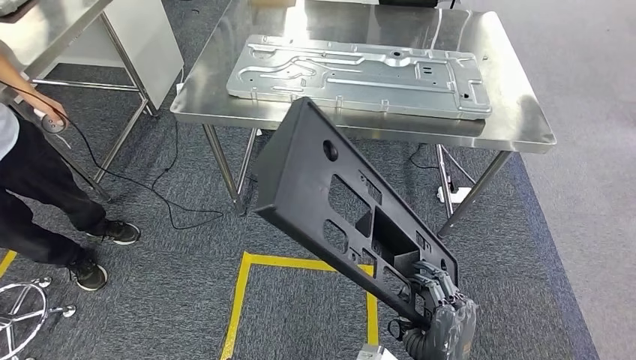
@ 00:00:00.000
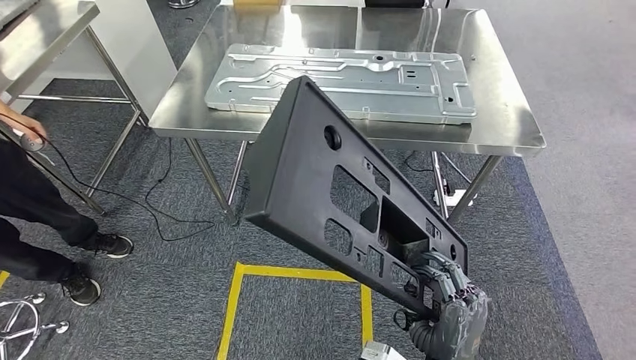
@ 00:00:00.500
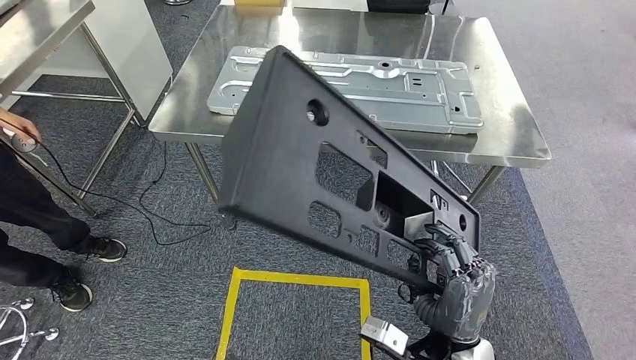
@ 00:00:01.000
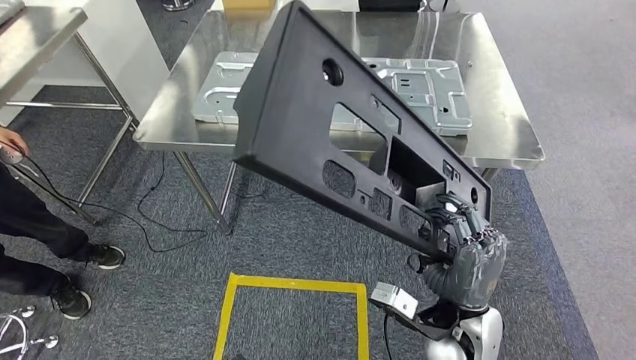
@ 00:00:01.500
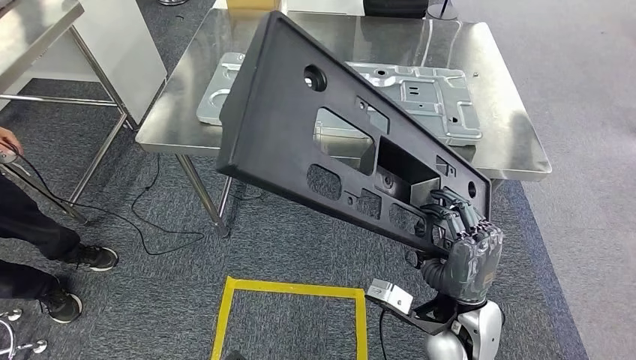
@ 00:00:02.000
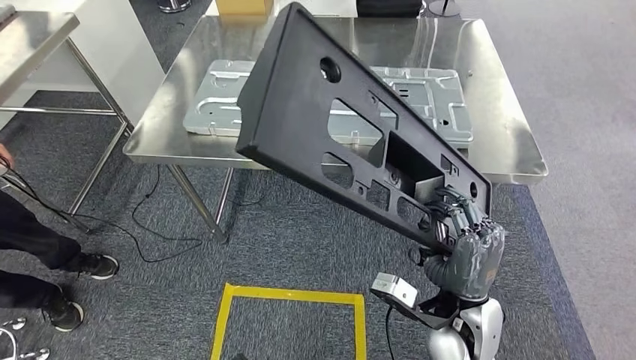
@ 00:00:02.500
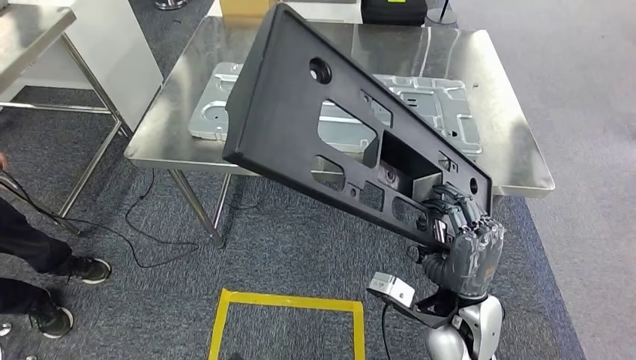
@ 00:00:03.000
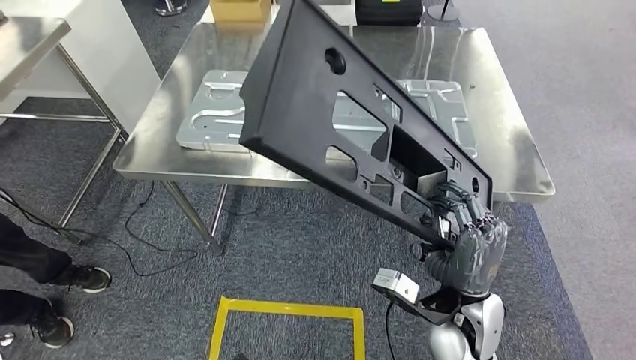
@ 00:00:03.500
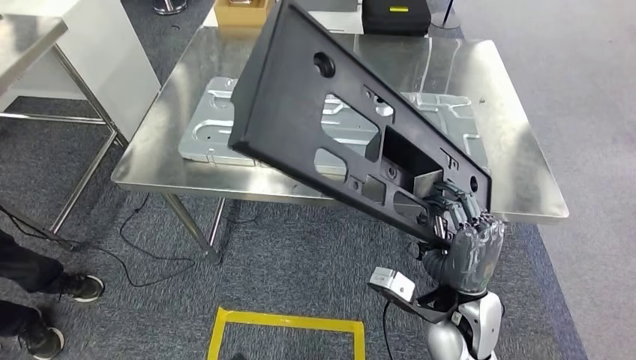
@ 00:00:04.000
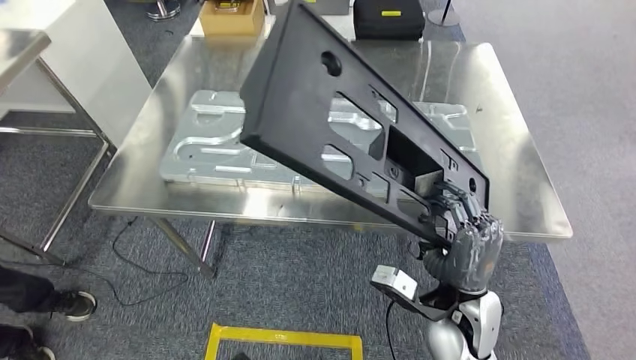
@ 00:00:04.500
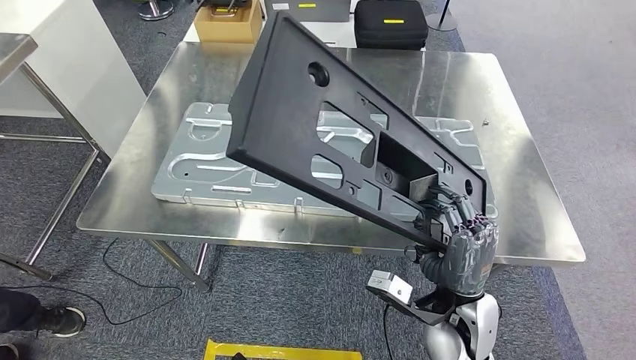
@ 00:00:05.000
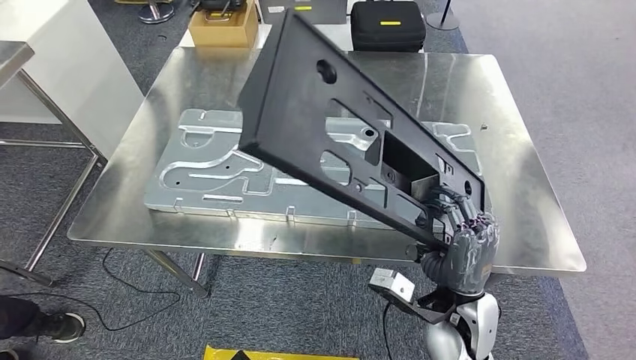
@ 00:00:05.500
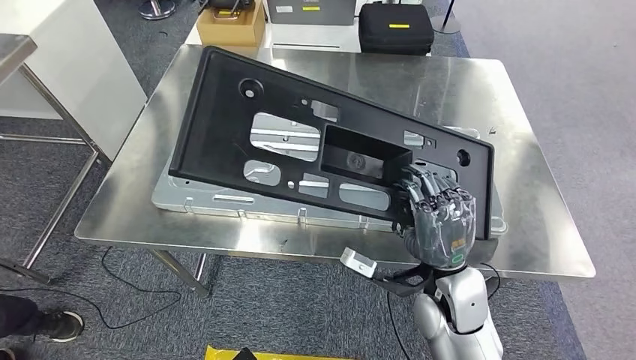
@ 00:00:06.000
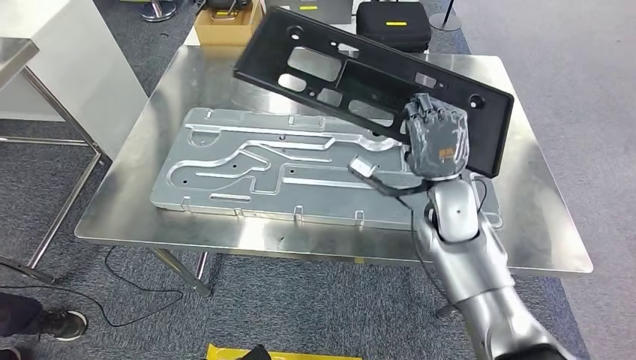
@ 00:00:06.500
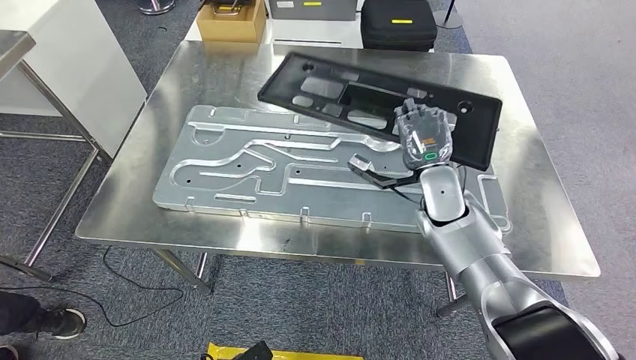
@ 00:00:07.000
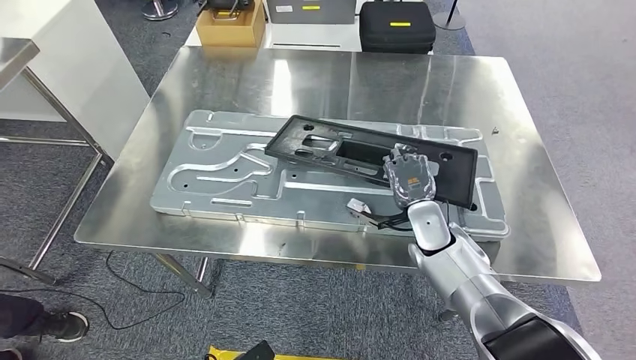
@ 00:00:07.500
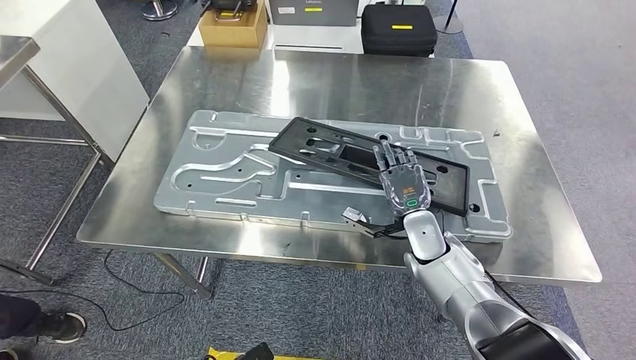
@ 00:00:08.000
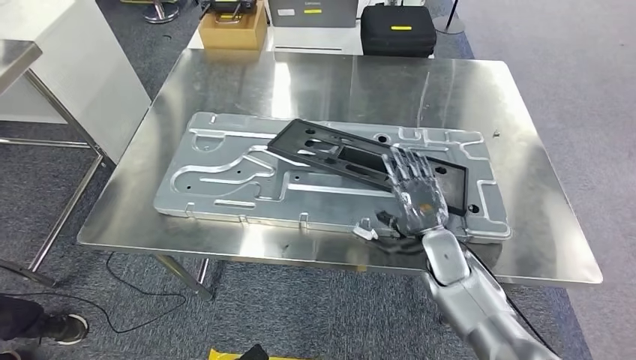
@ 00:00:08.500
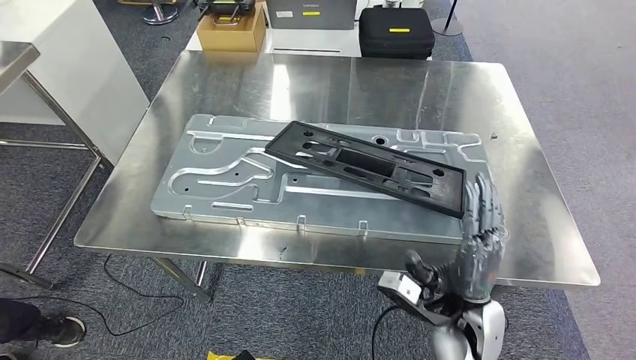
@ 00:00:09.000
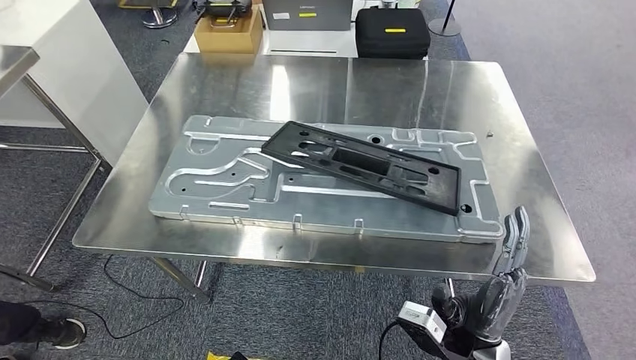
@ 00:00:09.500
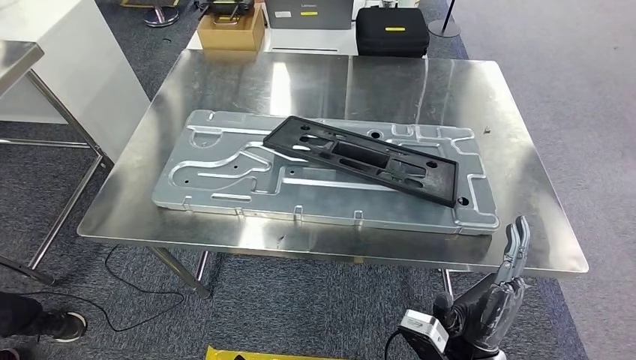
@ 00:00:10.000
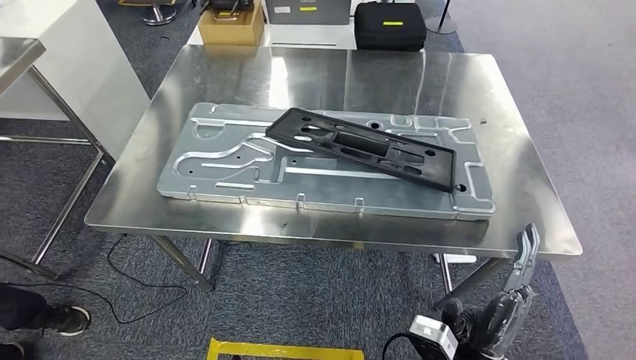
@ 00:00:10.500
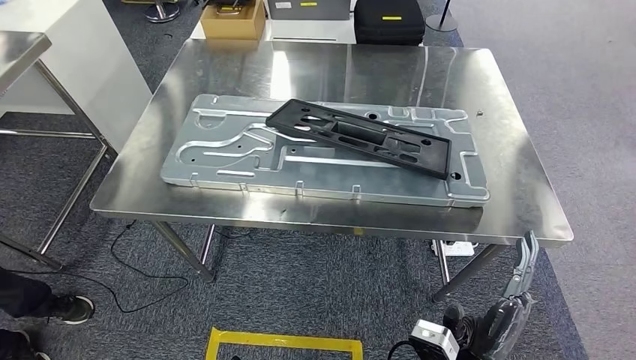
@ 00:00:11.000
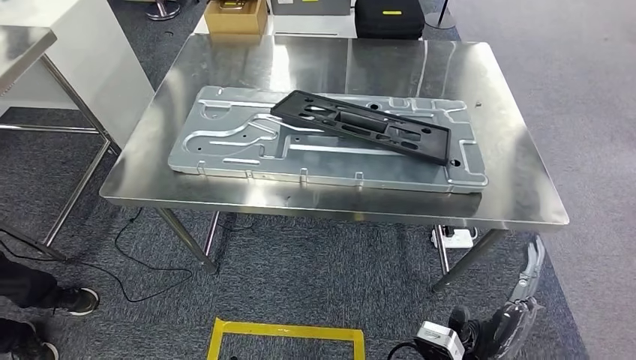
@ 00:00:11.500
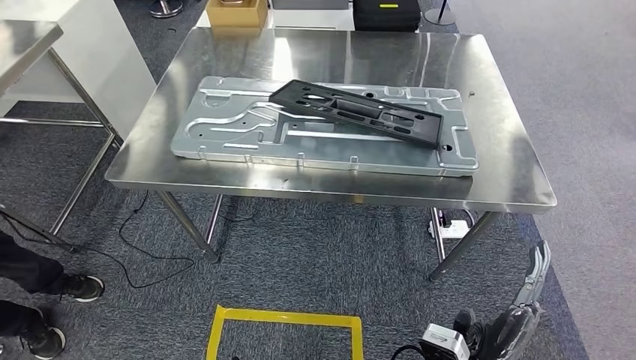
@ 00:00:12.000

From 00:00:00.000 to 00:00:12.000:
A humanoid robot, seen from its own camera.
Step, from 00:00:00.000 to 00:00:04.000: Move the large material to the workbench.
Step, from 00:00:06.500 to 00:00:10.500: Insert the large material into the corresponding slot on the workbench.

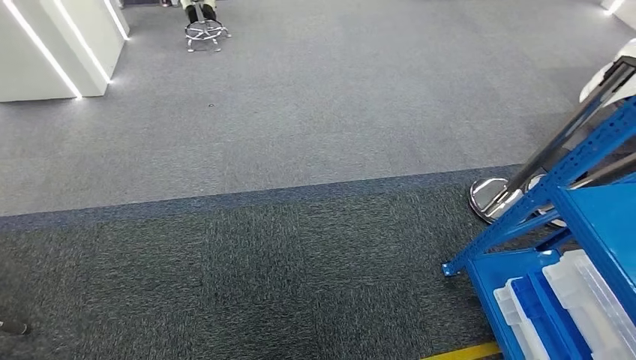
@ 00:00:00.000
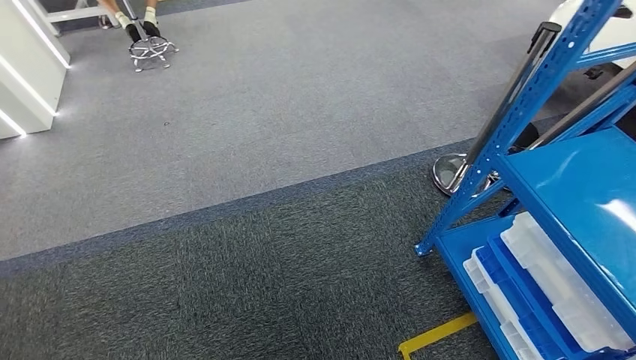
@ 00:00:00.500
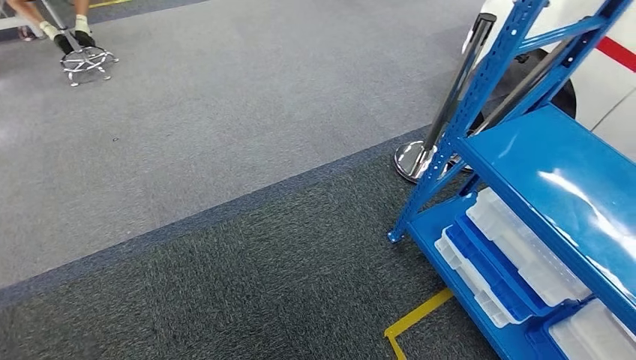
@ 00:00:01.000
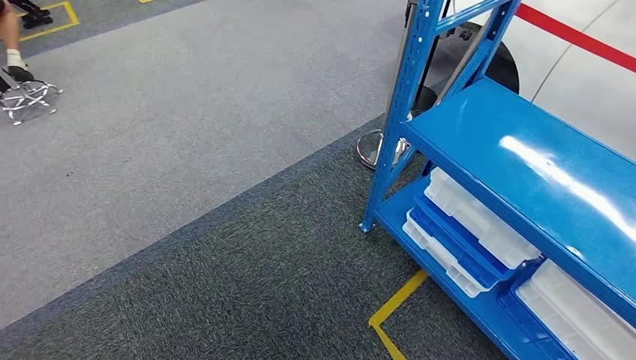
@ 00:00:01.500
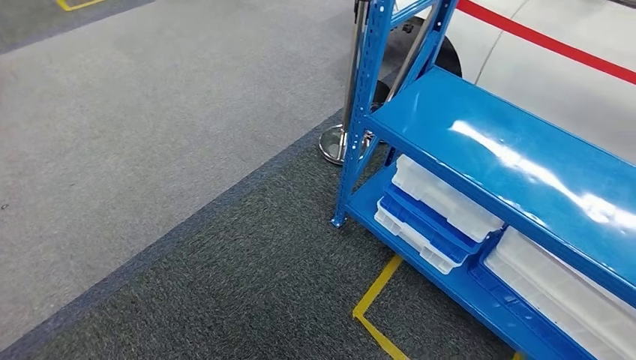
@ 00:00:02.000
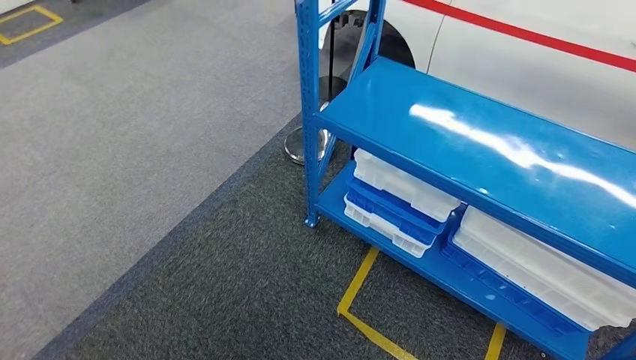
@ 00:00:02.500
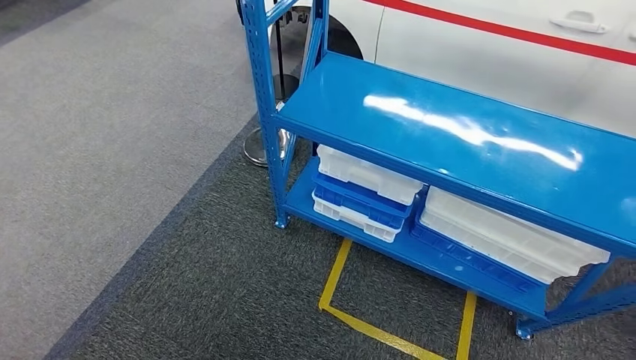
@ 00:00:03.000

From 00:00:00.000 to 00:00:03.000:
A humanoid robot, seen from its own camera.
Step, from 00:00:00.000 to 00:00:03.000: Return to the initial position at the shelf.

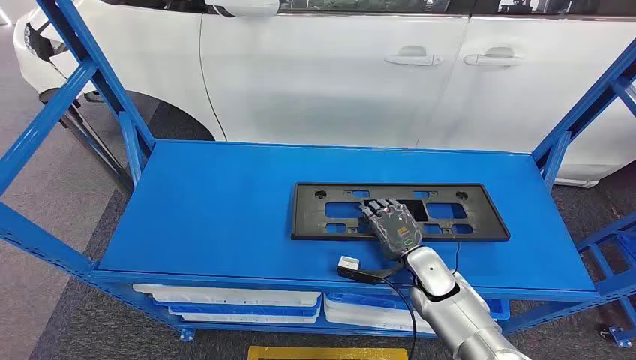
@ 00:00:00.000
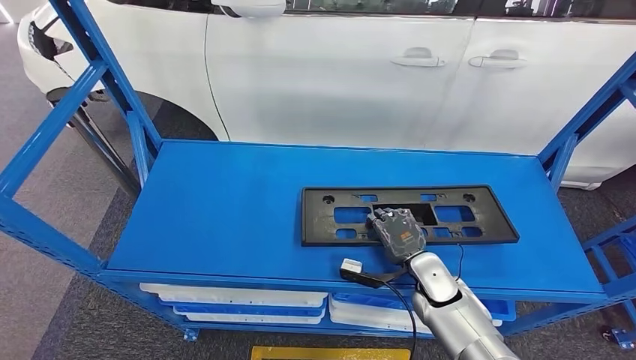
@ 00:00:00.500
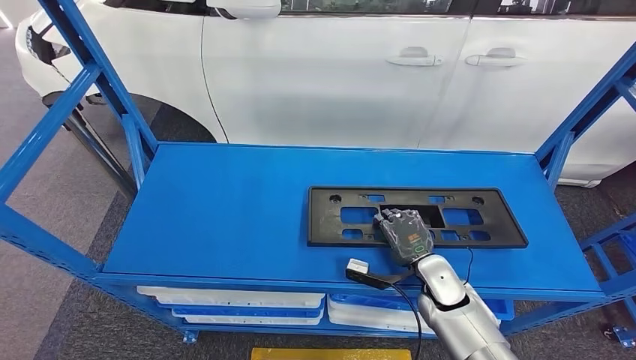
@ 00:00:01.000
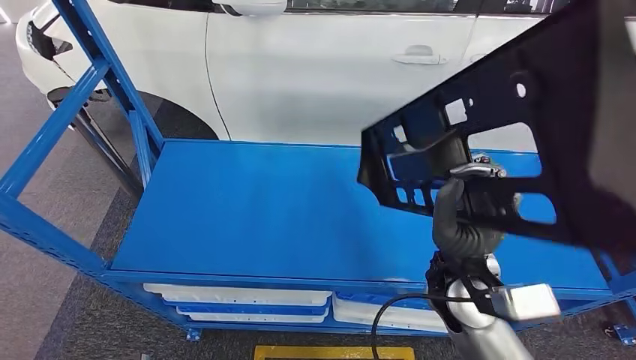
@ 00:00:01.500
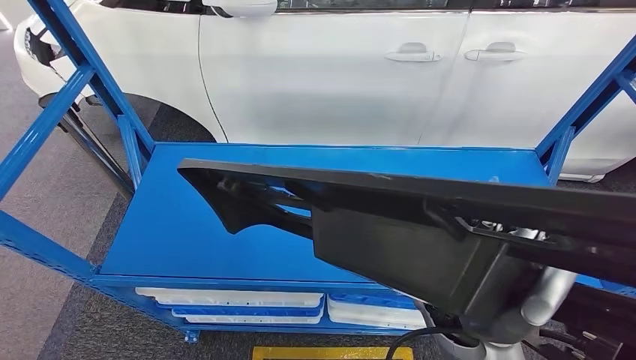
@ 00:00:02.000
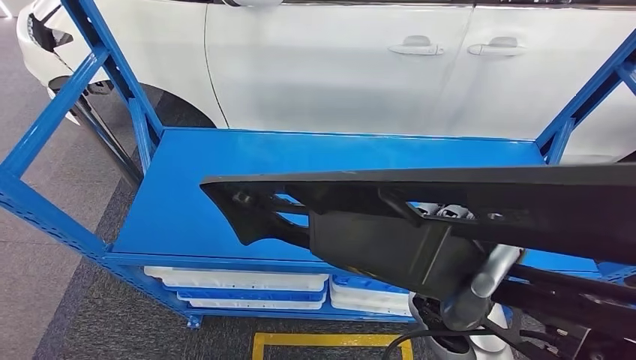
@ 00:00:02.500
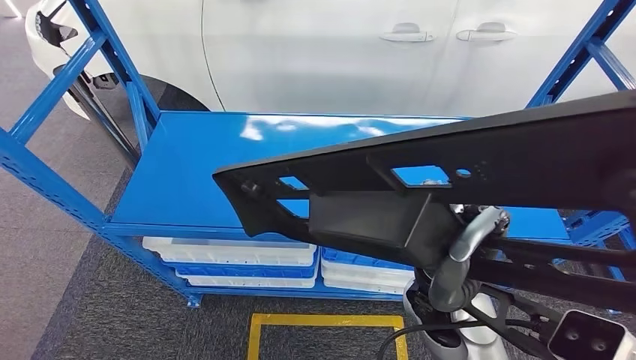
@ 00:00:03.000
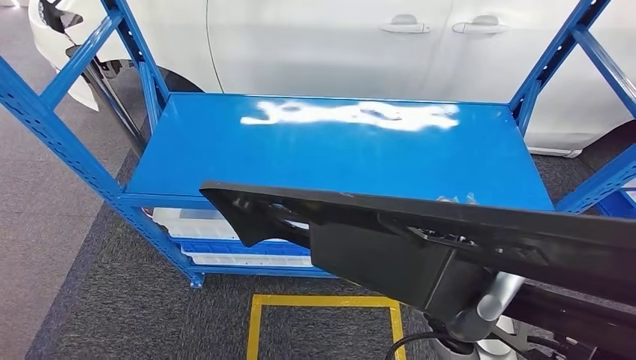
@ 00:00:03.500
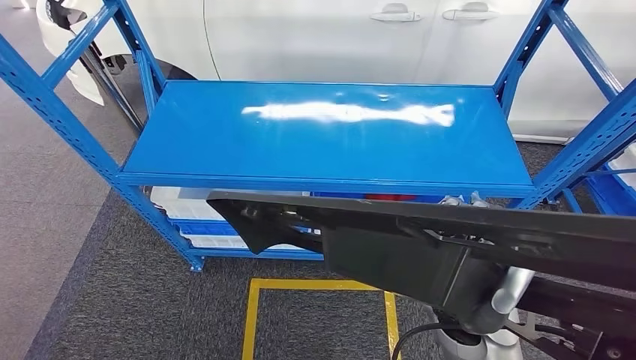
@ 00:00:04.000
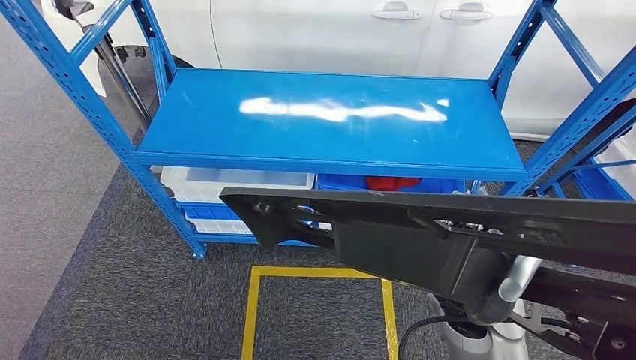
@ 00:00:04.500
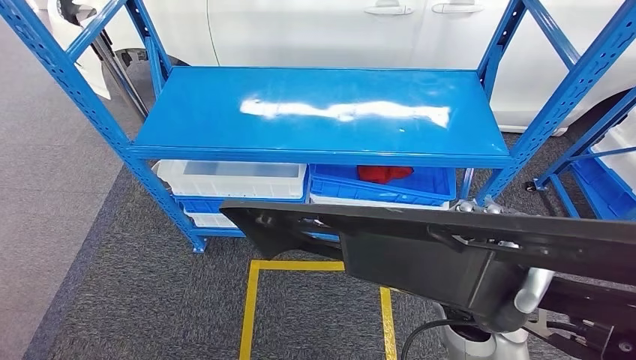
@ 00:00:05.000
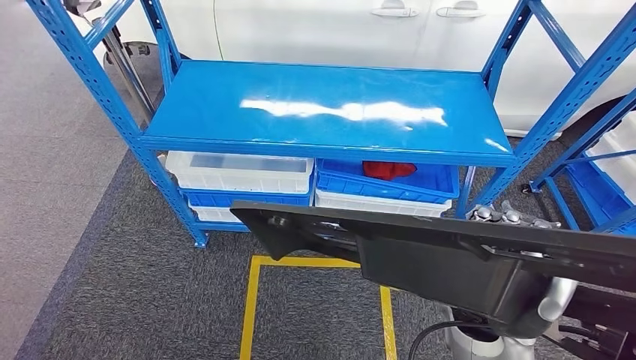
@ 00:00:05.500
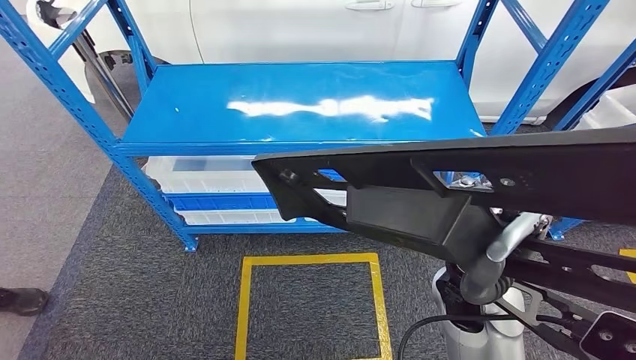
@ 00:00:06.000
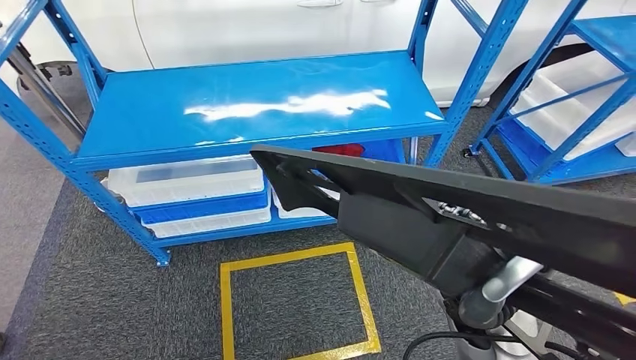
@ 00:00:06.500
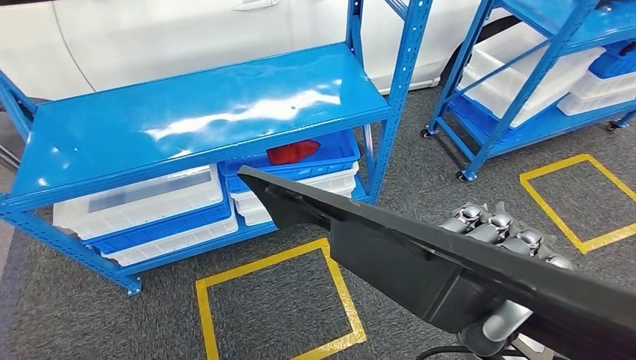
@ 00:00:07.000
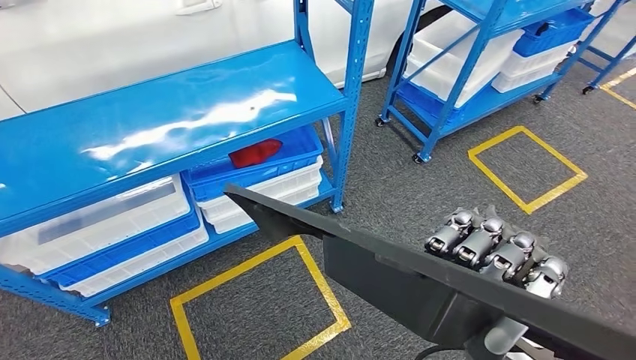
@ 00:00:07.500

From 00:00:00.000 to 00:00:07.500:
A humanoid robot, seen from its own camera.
Step, from 00:00:00.000 to 00:00:03.000: Pick up the large material from the shelf.
